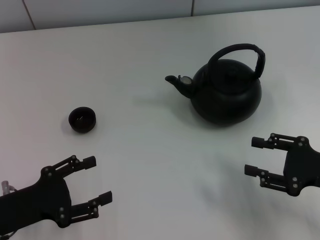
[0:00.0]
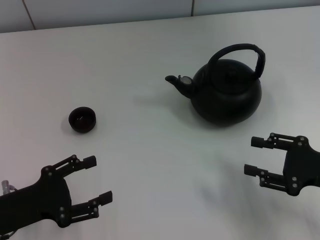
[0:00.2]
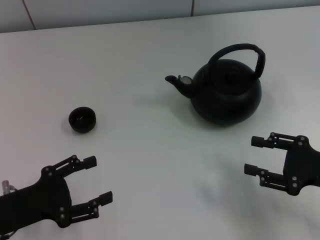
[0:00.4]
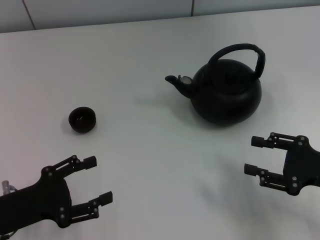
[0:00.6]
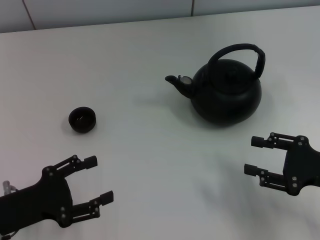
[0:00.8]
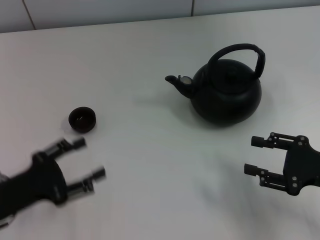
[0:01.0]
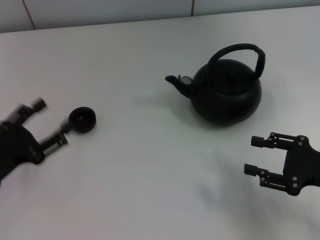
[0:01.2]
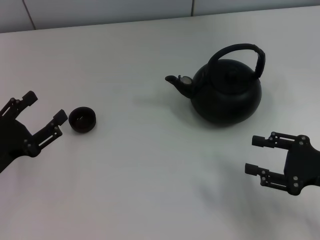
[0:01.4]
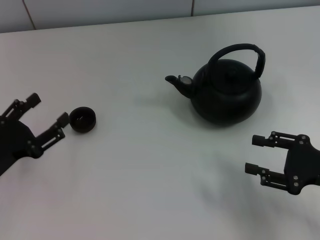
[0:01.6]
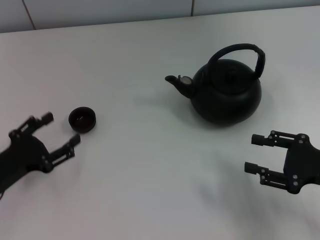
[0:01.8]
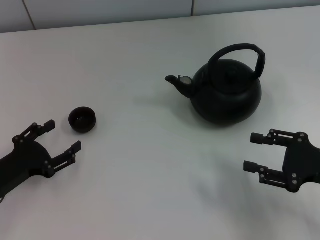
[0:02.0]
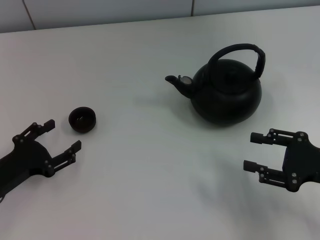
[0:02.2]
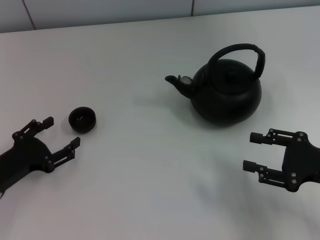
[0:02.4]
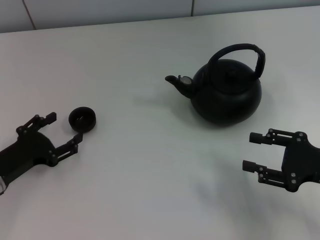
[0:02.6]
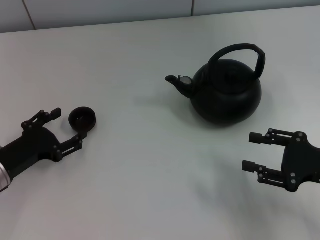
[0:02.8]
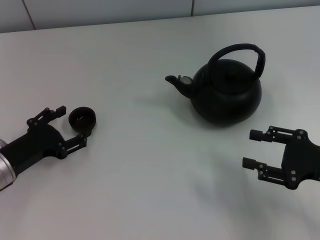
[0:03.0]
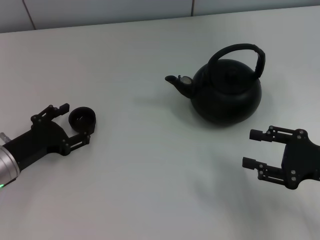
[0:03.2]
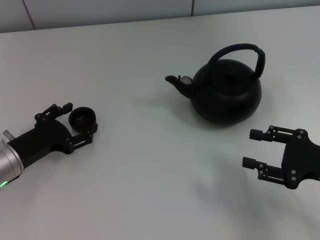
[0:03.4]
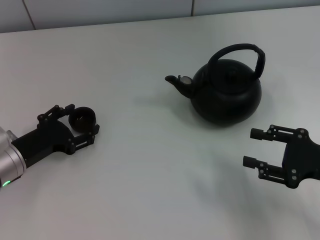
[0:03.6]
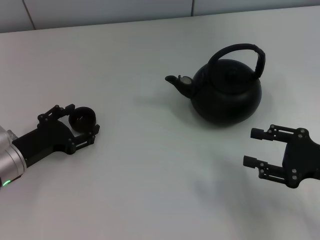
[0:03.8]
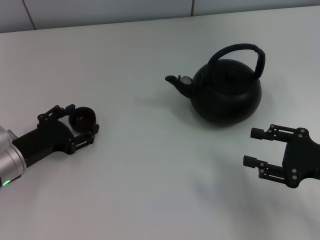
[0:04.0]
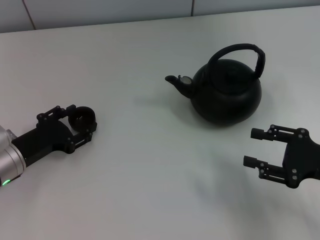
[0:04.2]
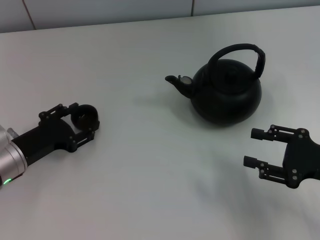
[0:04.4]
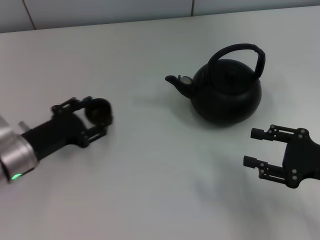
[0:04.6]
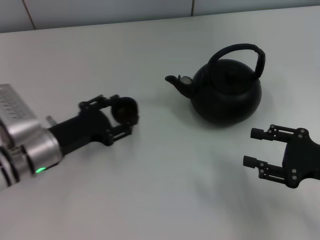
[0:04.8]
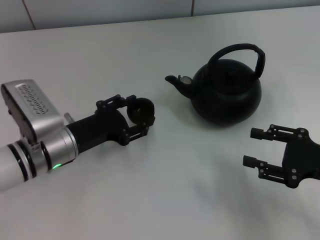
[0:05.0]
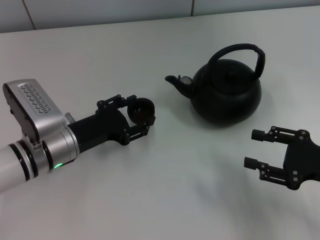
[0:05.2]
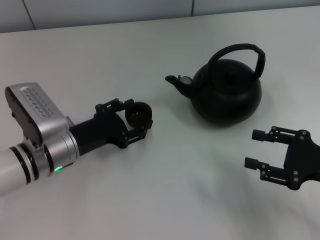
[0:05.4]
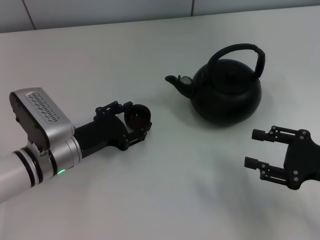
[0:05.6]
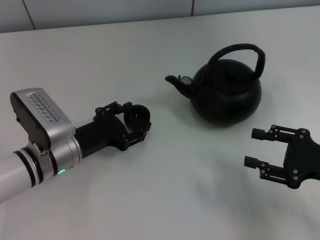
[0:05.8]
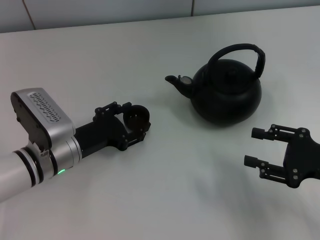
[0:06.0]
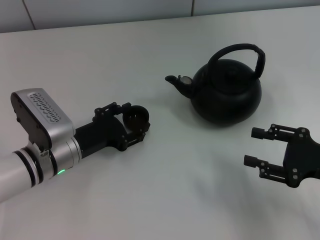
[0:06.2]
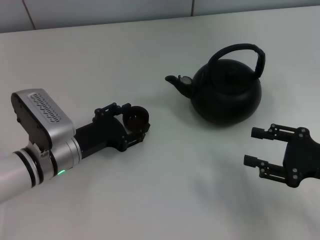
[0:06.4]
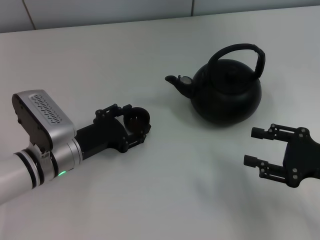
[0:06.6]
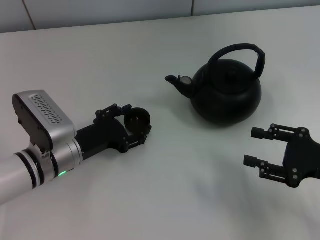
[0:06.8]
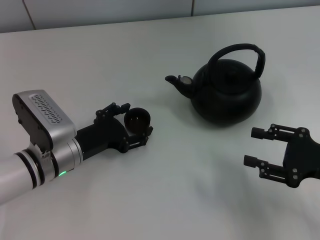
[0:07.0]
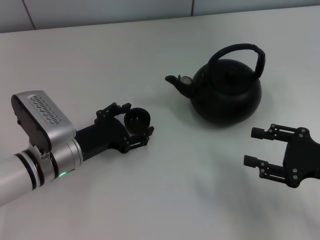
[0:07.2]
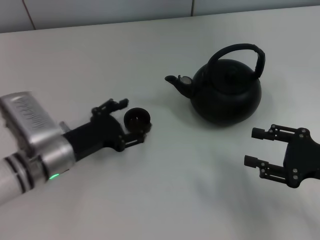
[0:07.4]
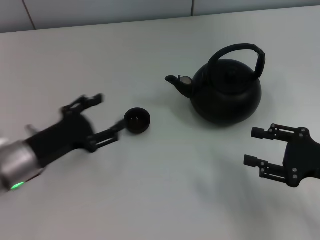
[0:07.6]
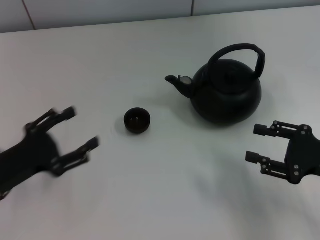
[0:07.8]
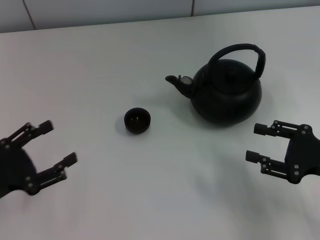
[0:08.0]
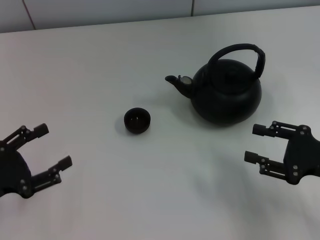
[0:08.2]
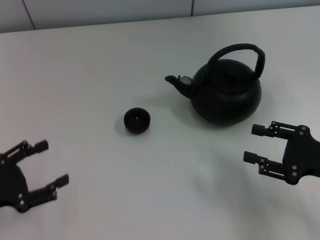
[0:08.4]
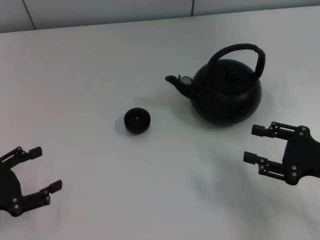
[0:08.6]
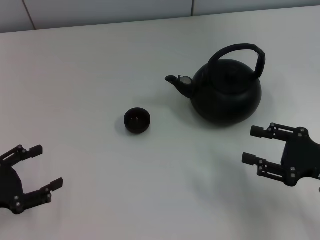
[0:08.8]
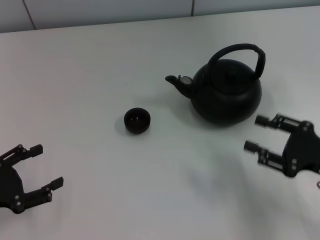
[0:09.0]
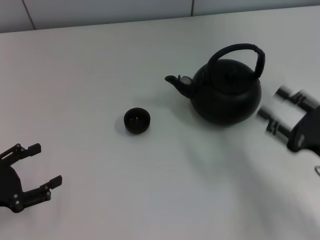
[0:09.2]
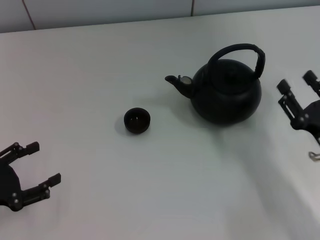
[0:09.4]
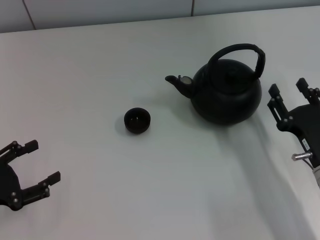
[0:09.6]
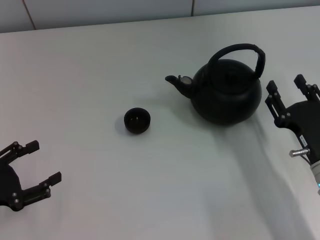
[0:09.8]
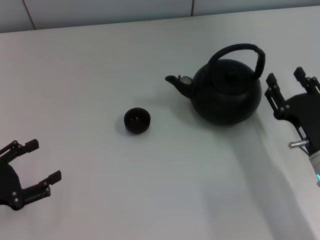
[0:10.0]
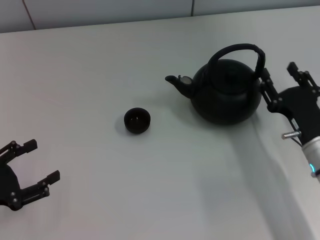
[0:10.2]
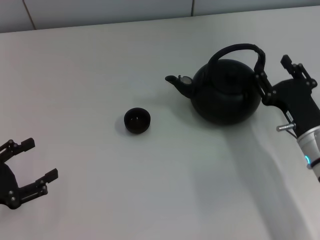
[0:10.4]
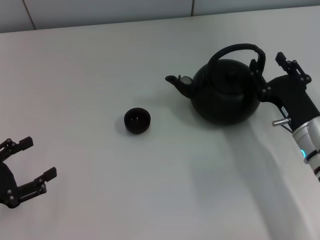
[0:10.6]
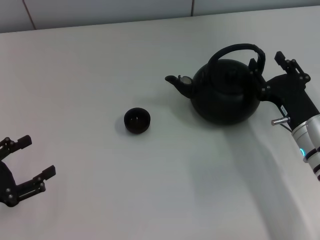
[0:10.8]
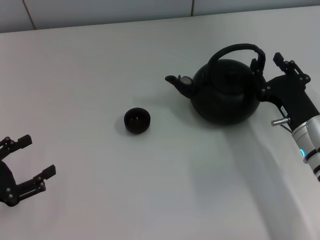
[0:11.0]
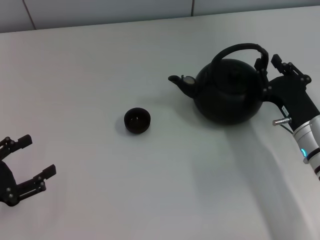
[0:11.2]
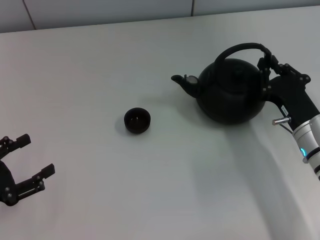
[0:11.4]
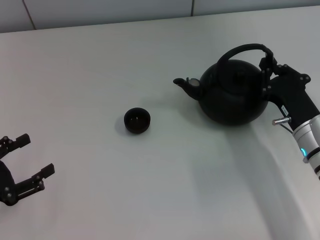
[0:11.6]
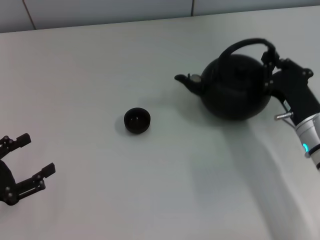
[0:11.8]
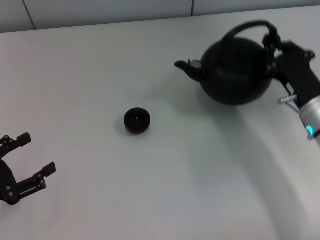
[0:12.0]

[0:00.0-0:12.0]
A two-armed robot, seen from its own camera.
Task of the whole recording: Grasp the handle of the teapot with one hand and pour tea into the teacup.
Step, 0:00.0 to 0:05.0: Pick up the teacup with the left gripper.
Step, 0:05.2 to 0:07.4: Place the teacup in the center of view with the left gripper.
0:01.6 to 0:03.0: The left gripper shifts by some 5 cm.
0:03.0 to 0:04.4: The left gripper closes.
0:04.4 to 0:06.0: The left gripper is displaced to the right by approximately 10 cm.
0:06.0 to 0:07.6: The left gripper opens its fingers.
0:07.6 to 0:09.0: The left gripper is displaced to the left and backward by roughly 15 cm.
0:09.0 to 0:10.4: The right gripper moves to the left and forward, about 10 cm.
0:10.4 to 0:12.0: The right gripper ends up some 5 cm from where it was, and closes its fingers.

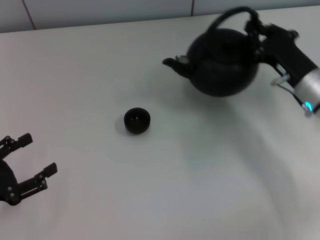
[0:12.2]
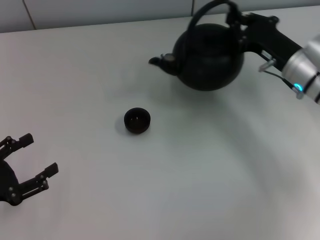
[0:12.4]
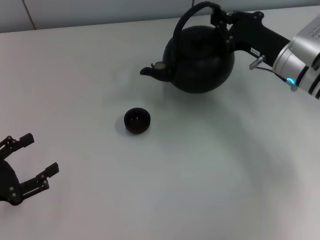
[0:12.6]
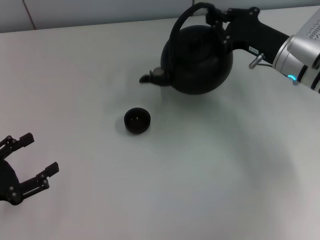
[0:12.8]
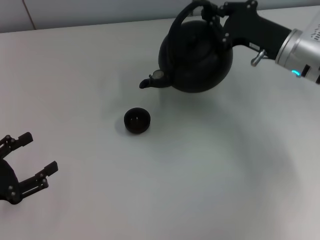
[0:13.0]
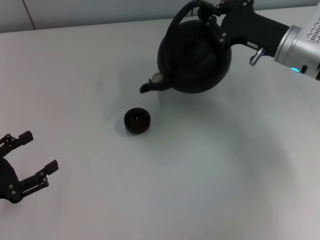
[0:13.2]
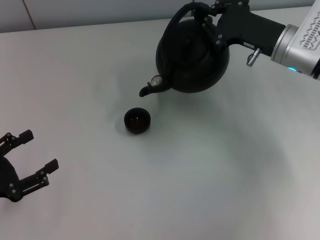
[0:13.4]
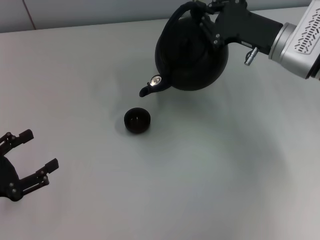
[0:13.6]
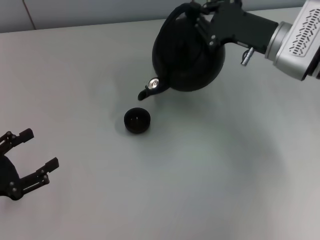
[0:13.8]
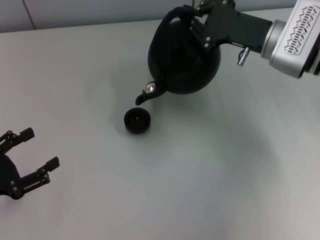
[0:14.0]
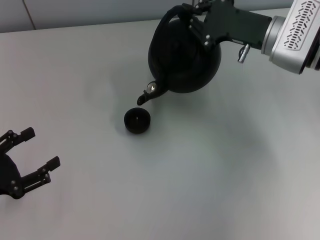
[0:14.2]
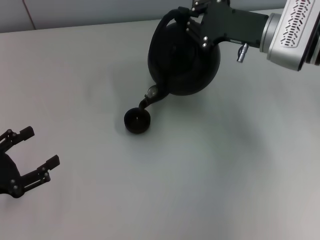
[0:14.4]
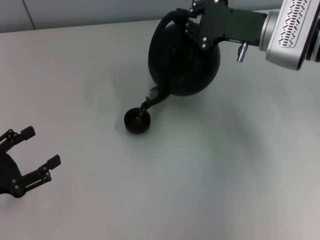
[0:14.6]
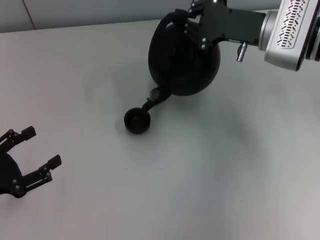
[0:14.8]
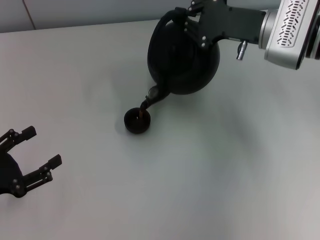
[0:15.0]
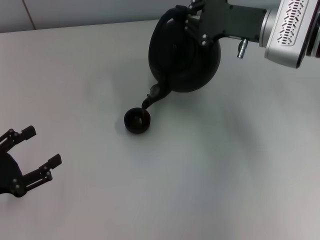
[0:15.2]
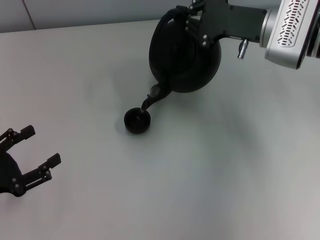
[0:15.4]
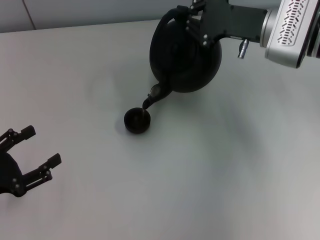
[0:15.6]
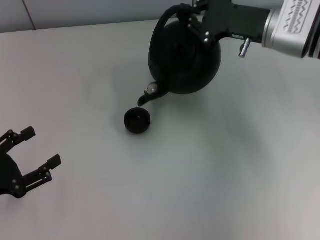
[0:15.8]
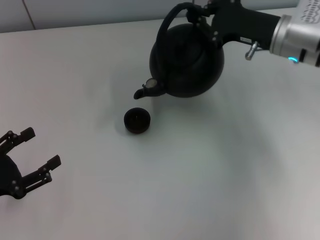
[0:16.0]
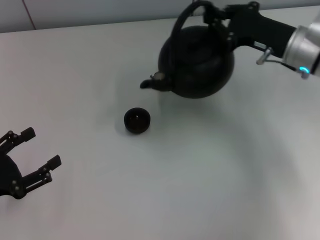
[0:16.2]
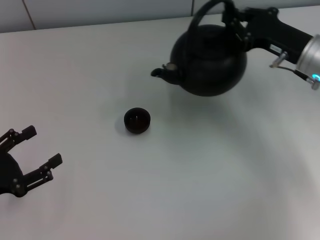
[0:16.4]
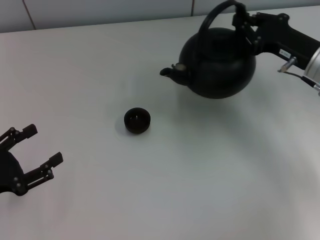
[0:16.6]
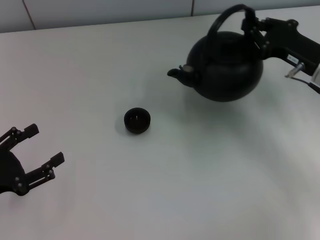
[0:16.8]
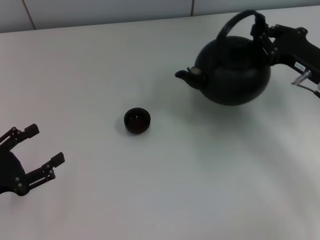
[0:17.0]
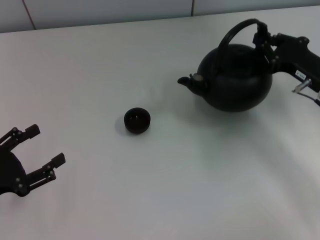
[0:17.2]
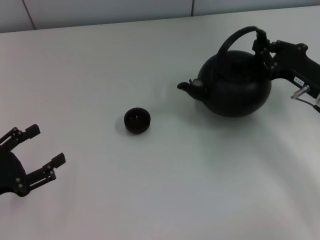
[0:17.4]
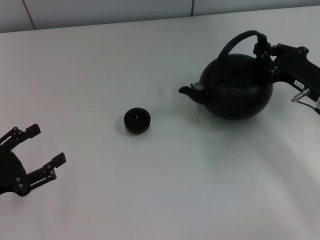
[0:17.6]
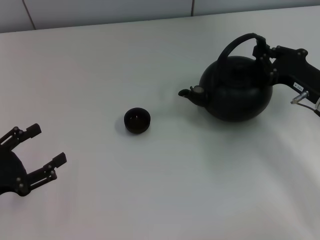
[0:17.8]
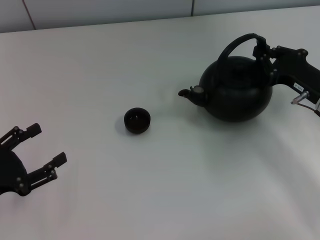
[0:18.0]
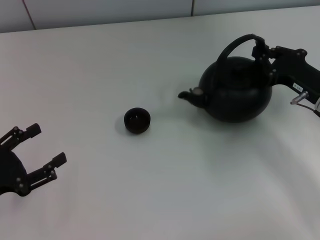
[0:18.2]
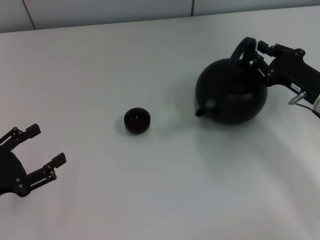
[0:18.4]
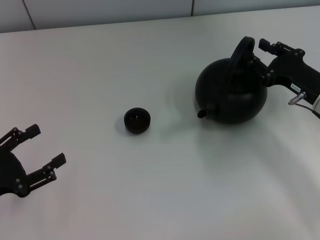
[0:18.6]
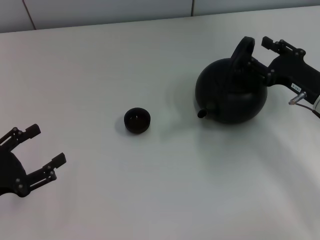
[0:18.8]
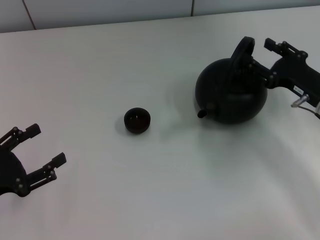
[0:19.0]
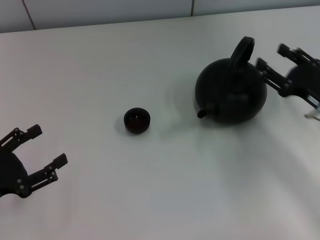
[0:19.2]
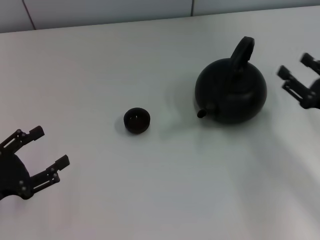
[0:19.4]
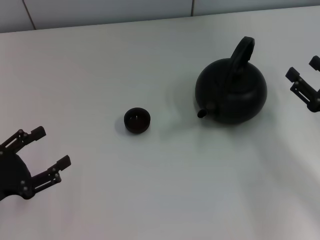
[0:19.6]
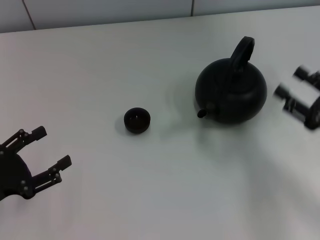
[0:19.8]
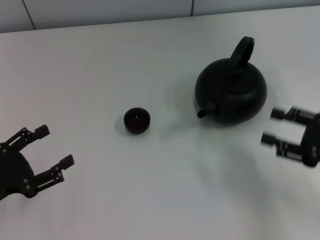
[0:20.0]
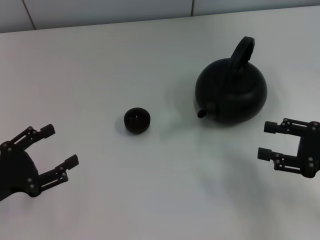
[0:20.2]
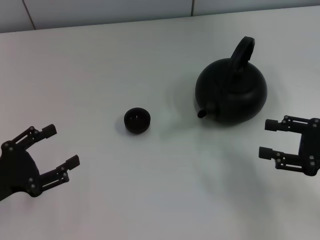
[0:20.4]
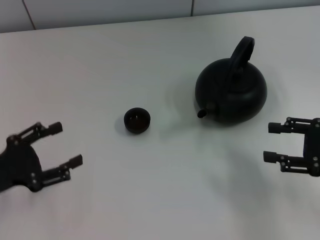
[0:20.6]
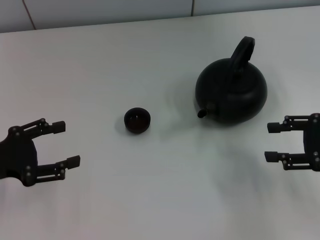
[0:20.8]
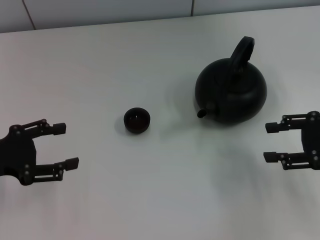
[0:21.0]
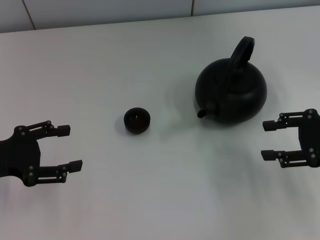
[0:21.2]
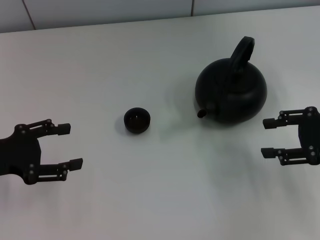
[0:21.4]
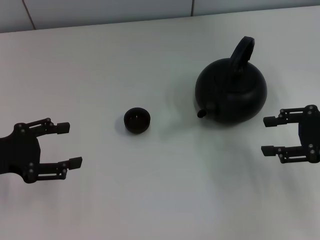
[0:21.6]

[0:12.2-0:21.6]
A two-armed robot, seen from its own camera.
Task of the whole recording: Grasp the handle of the teapot with one hand and pour tea into the teacup.
Step, 0:16.4 to 0:18.8: Put down the teapot with the right gripper.
0:12.2 to 0:13.8: The right gripper travels upward by about 5 cm.
0:13.8 to 0:15.4: There are only small adjustments of the grippers.
0:15.4 to 0:17.0: The right gripper shifts roughly 15 cm to the right, backward and downward.
0:17.0 to 0:18.4: The grippers stay close to where they were, moving slightly.
0:18.4 to 0:20.0: The right gripper is displaced backward by some 10 cm, and opens.
0:20.0 to 0:21.6: Both grippers travel together forward, roughly 5 cm.

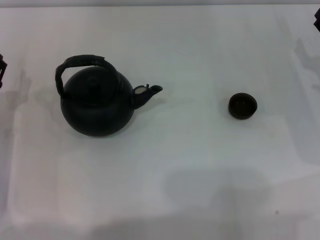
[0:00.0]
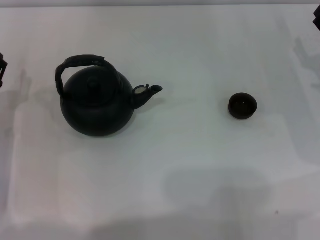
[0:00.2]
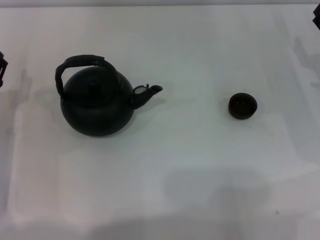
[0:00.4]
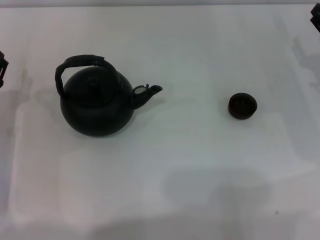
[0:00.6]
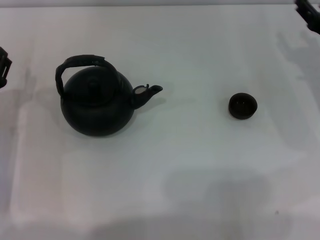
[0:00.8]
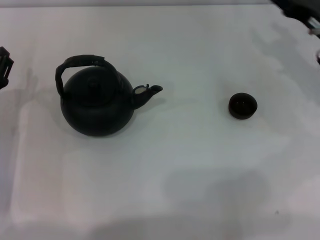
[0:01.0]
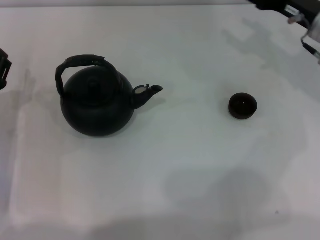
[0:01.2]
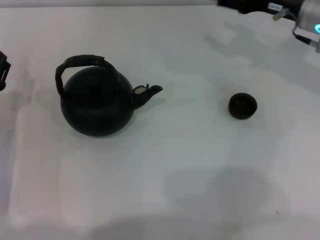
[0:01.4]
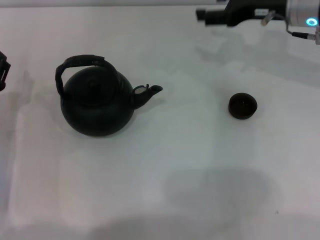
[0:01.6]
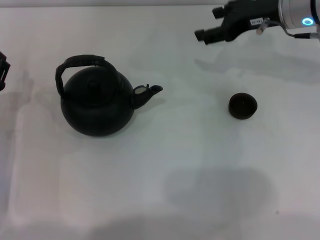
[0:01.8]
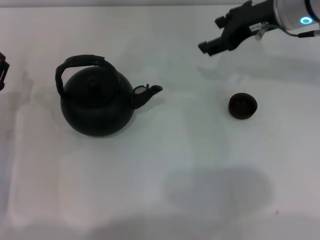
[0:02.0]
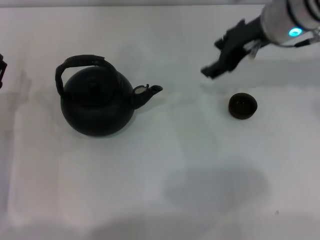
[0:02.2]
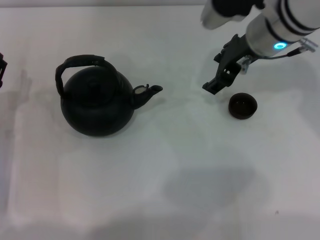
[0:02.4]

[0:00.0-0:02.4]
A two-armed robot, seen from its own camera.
Task of the whole recording: Grasp the handle of the teapot with one hand and pour tea into the teacup.
0:00.0 to 0:01.2: The right gripper goes some 10 cm forward, upward and to the left.
0:01.2 to 0:02.4: The right gripper is displaced to the left and upward by about 15 cm.
